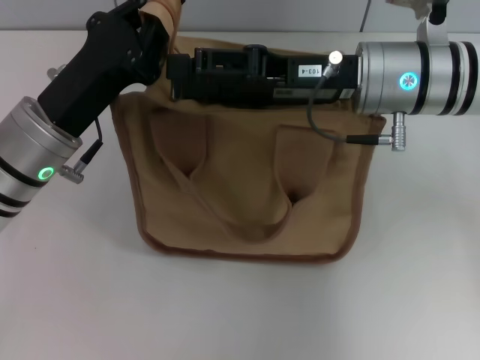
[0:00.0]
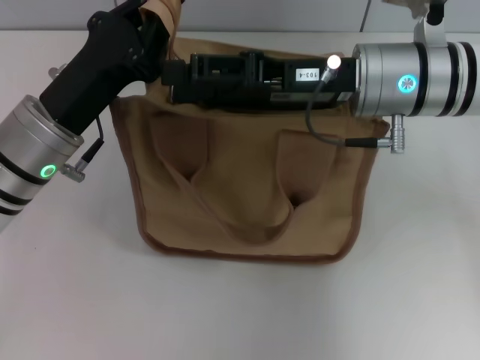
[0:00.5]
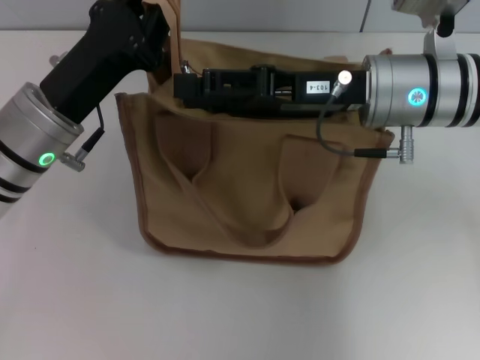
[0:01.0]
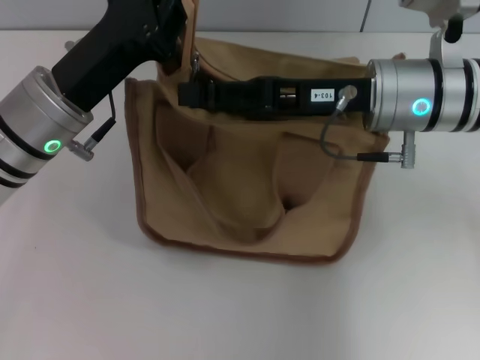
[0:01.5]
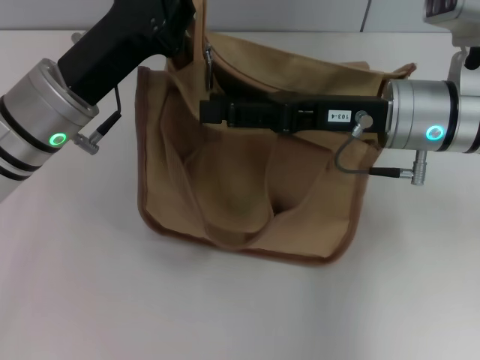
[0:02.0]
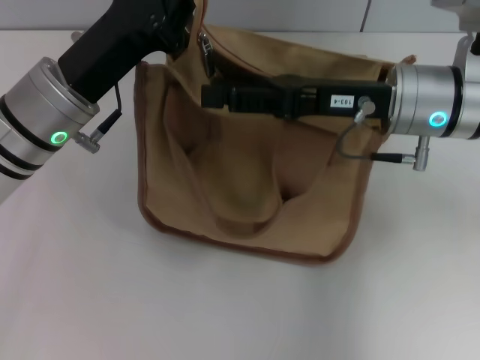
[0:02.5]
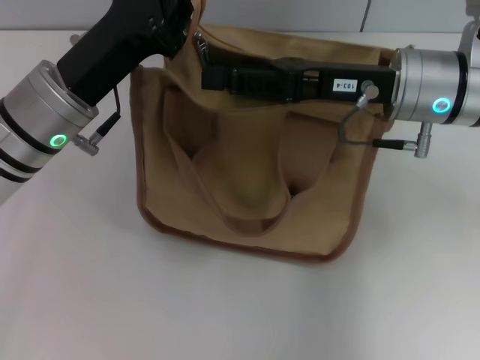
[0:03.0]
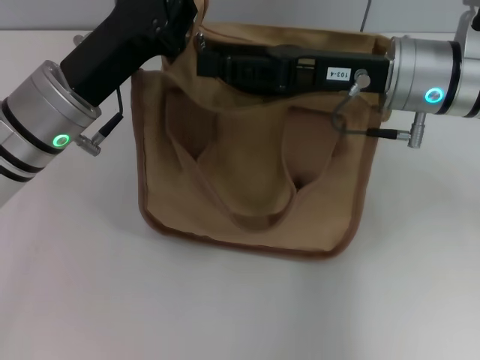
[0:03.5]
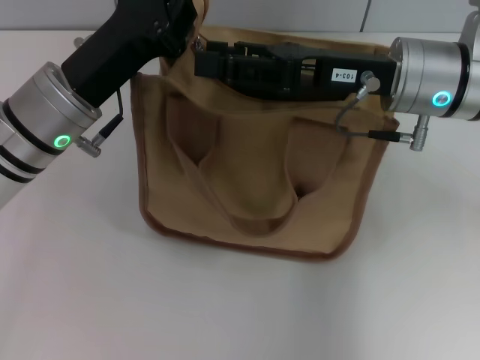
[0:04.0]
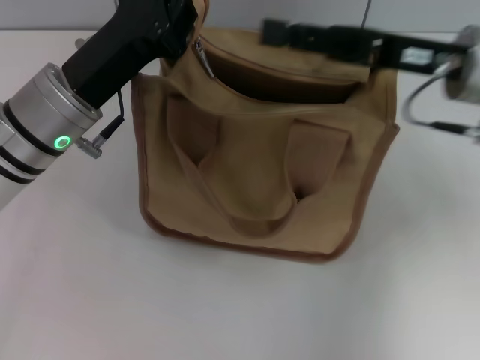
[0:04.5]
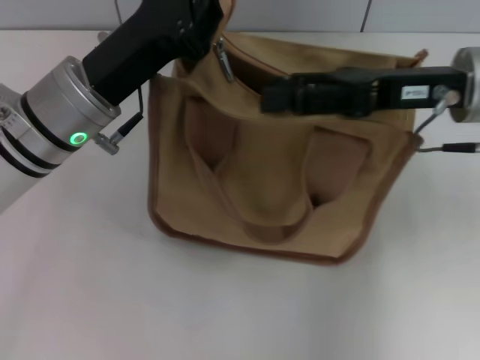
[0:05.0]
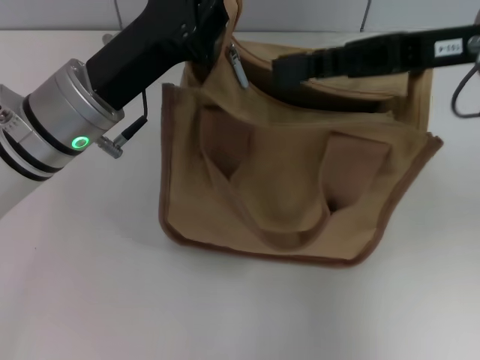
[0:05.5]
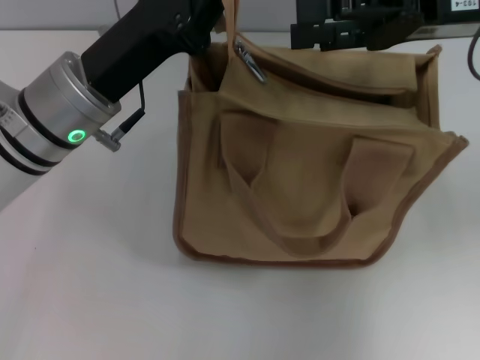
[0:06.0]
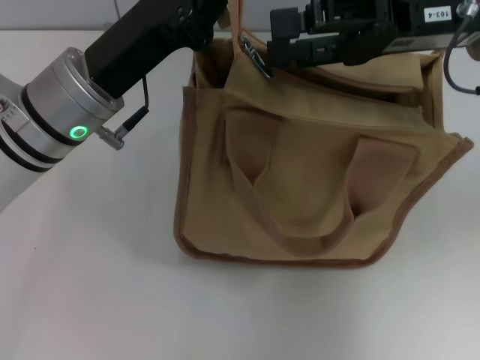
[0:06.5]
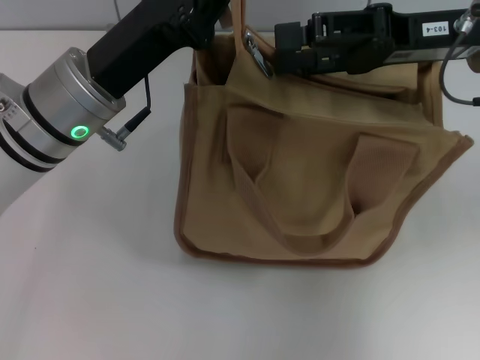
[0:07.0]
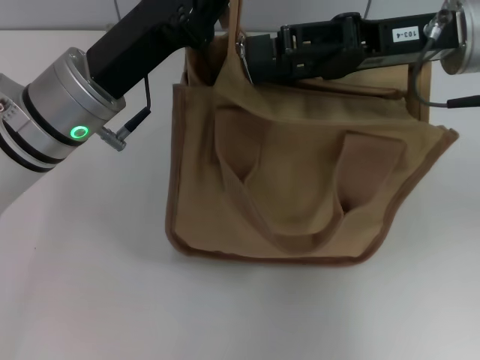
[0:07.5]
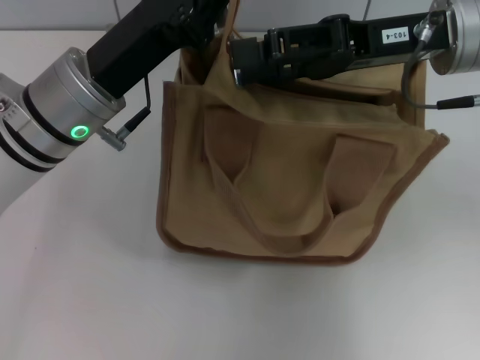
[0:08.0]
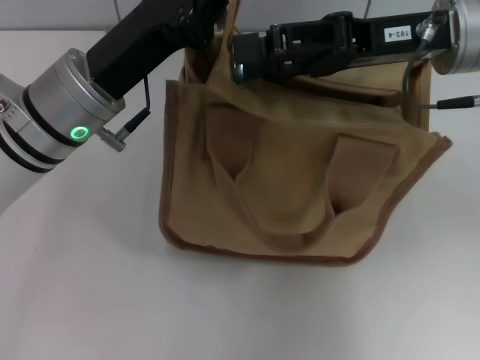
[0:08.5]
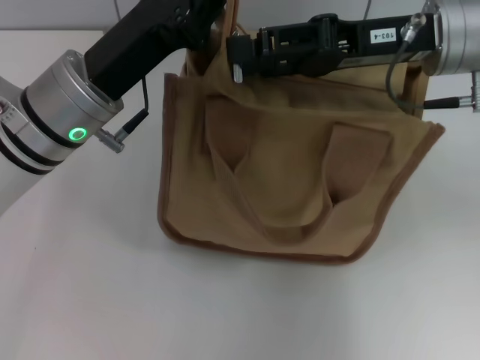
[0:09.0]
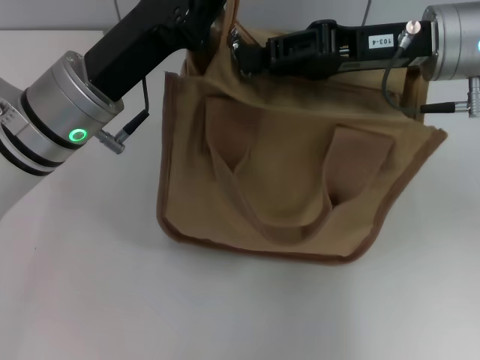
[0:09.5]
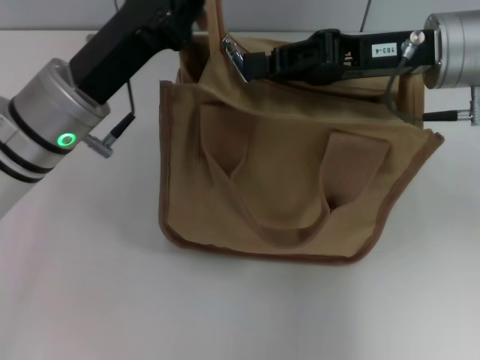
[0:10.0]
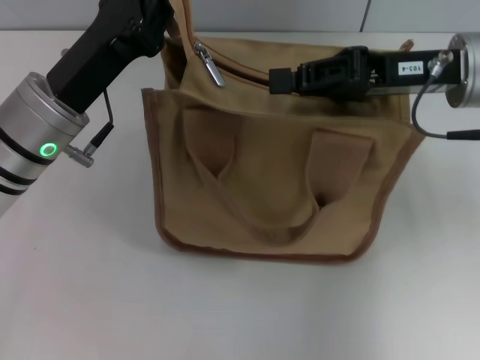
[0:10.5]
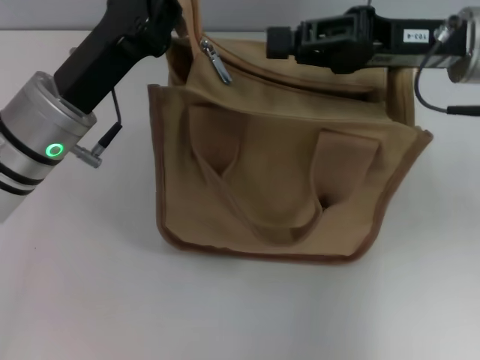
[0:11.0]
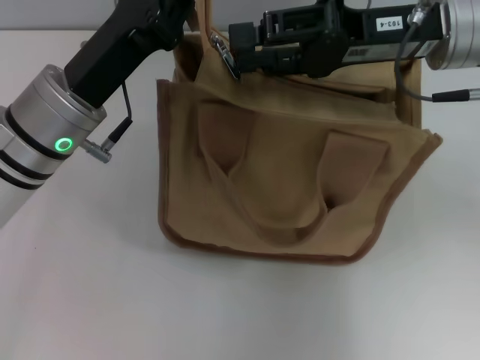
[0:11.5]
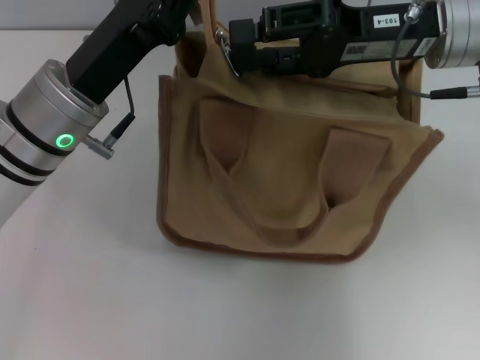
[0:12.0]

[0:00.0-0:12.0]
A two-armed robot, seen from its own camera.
0:02.0 to 0:04.0: The grippers make only small movements.
0:04.0 to 0:06.0: The right gripper goes some 10 cm to the right and upward.
0:08.0 to 0:10.0: The right gripper closes up.
0:10.0 to 0:12.0: The right gripper opens its fingers.

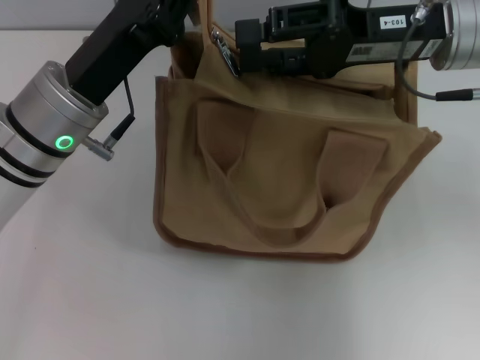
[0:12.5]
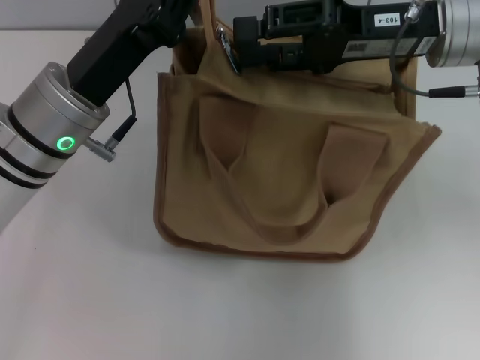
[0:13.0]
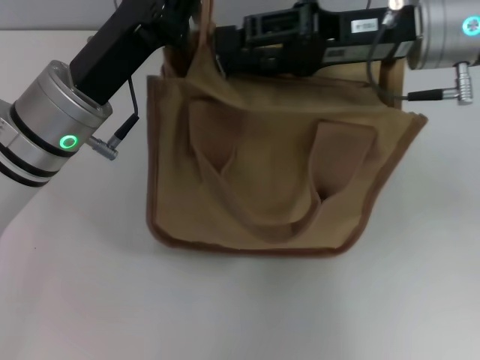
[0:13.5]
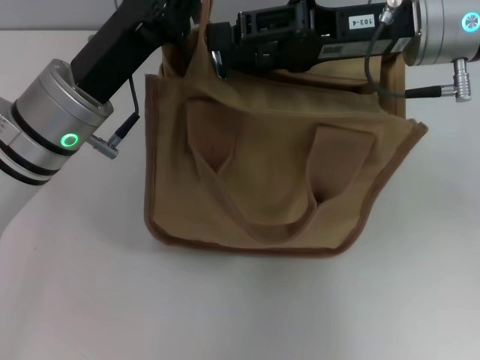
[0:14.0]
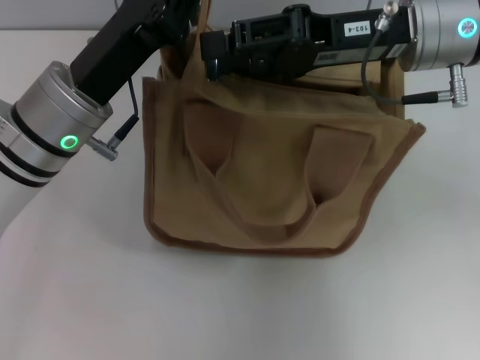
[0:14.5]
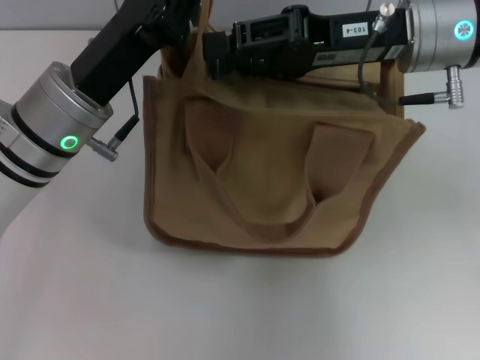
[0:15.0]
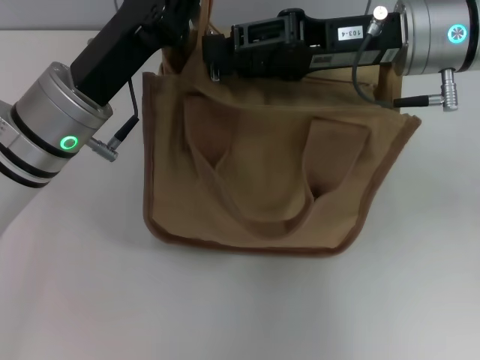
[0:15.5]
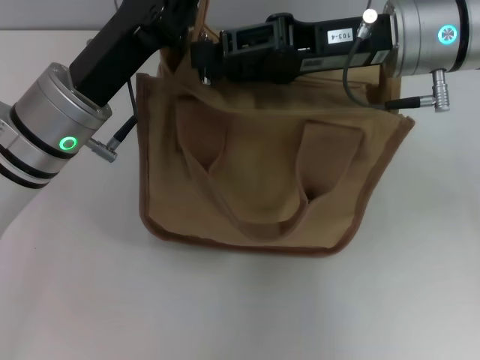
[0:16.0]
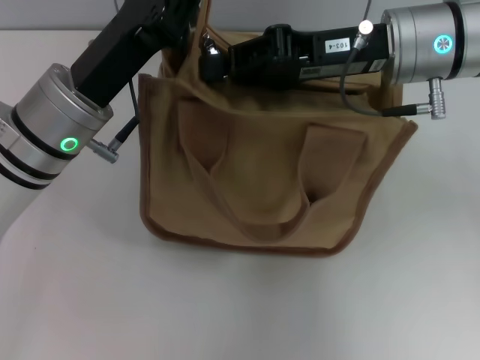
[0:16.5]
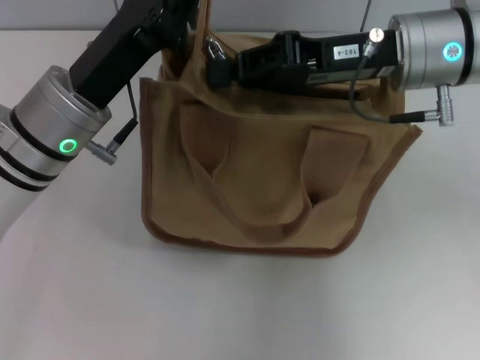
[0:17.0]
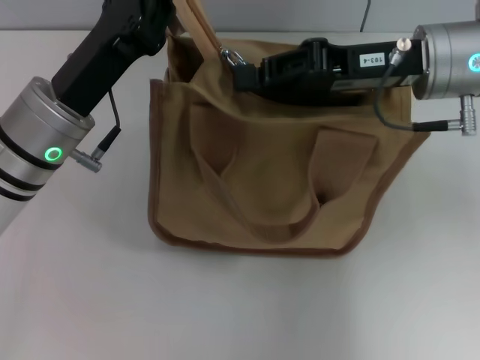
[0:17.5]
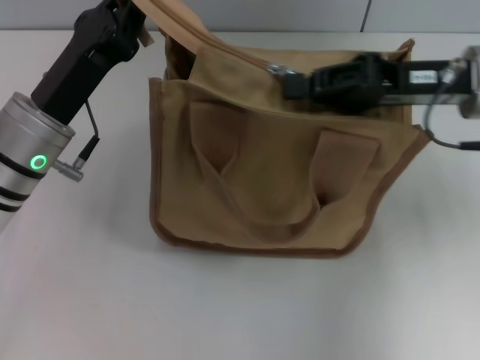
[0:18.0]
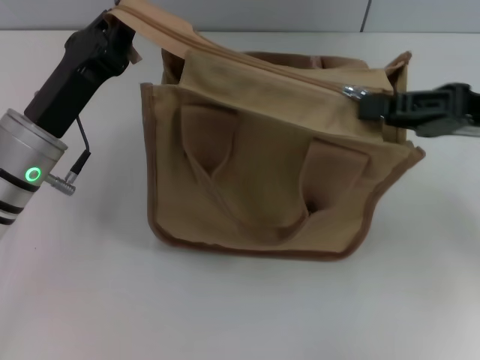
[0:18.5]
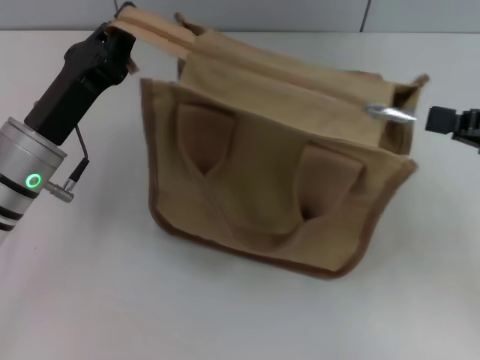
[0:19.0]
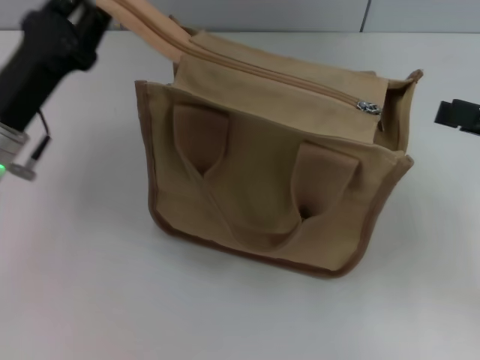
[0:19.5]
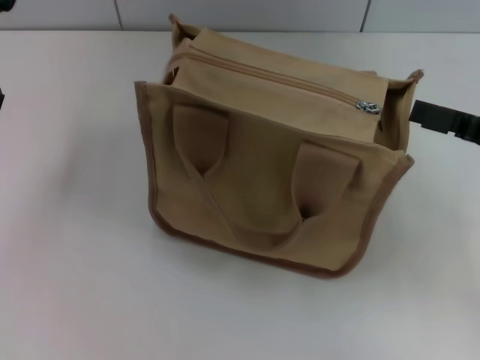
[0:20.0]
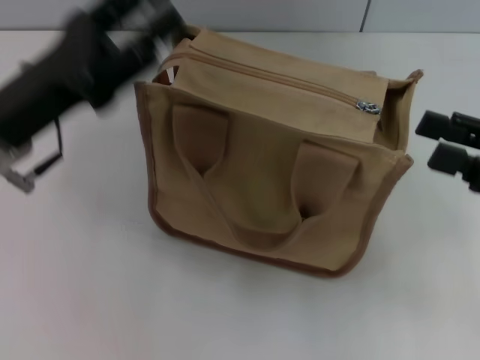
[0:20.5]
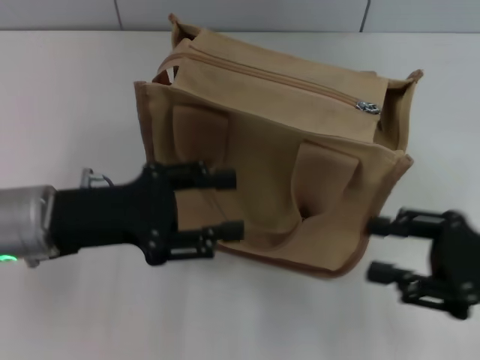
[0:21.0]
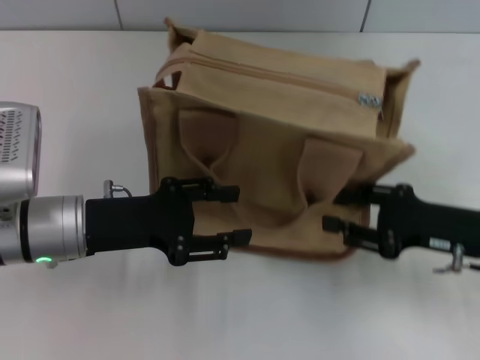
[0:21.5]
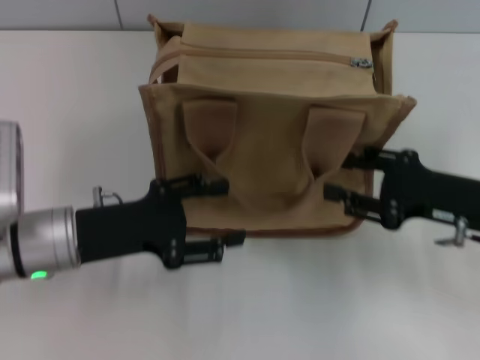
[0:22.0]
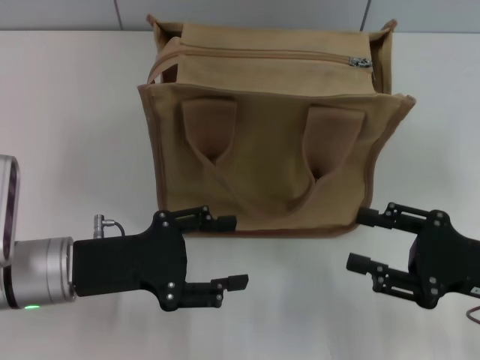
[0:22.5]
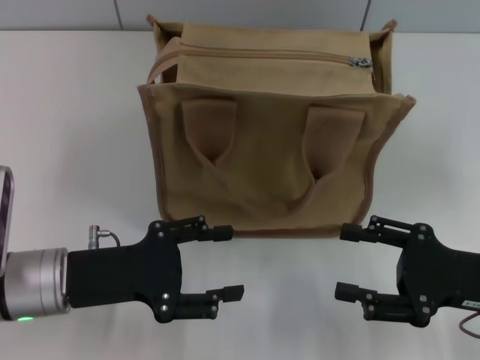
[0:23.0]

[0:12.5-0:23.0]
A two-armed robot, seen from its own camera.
Step, 0:12.5 to 0:18.5: Pull up the zipper with your right hand.
Step, 0:19.0 to 0:19.5: Grab the zipper with your left hand.
0:12.5 to 0:14.5: The grippers make only small movements.
0:14.5 to 0:16.5: The right gripper closes its fingers.
0:16.5 to 0:19.0: The left gripper shifts by about 5 cm. Meanwhile the right gripper shifts about 20 cm to the right and backward.
0:19.0 to 0:21.0: The left gripper opens its fingers. The right gripper goes approximately 10 cm backward and downward, and opens.
0:21.0 to 0:23.0: The left gripper ends up about 5 cm from where it was.

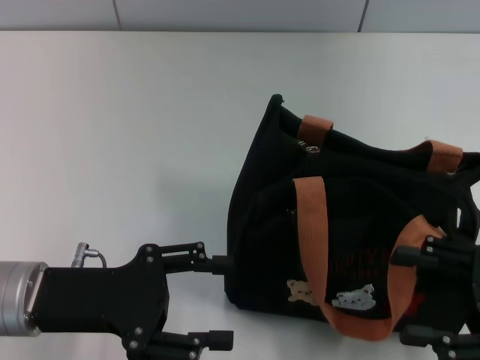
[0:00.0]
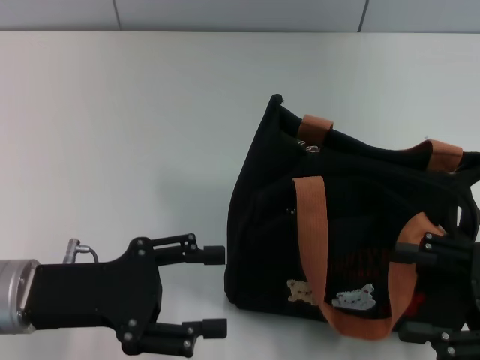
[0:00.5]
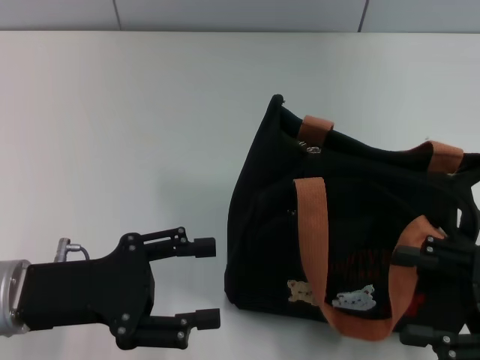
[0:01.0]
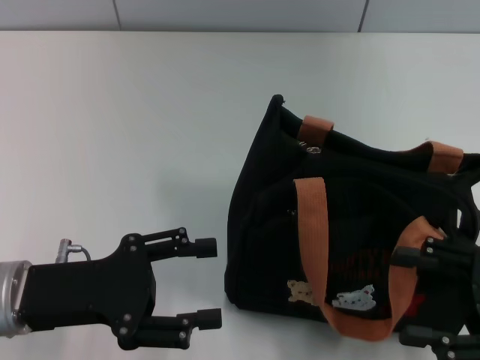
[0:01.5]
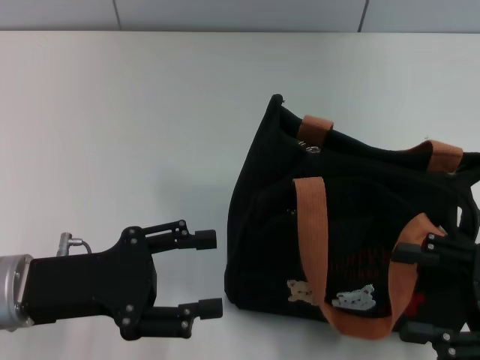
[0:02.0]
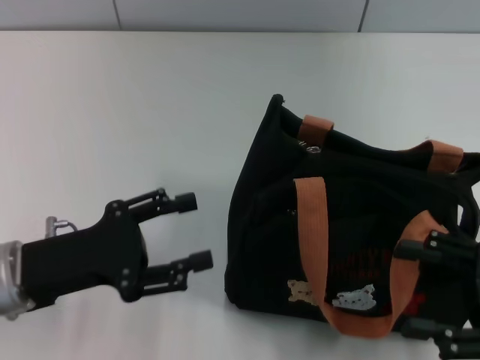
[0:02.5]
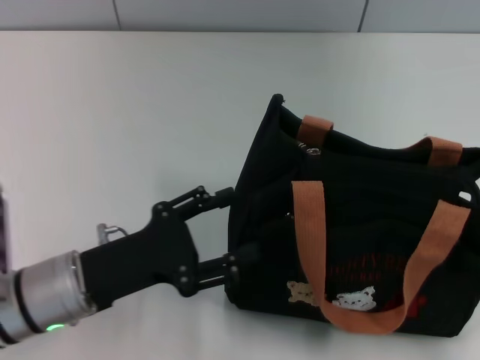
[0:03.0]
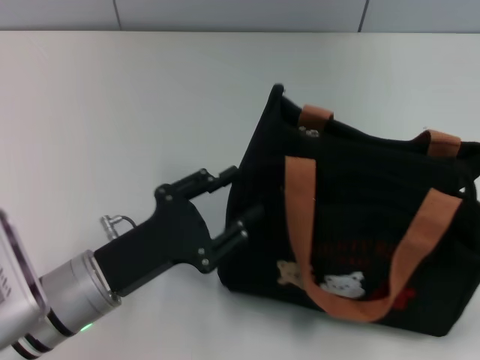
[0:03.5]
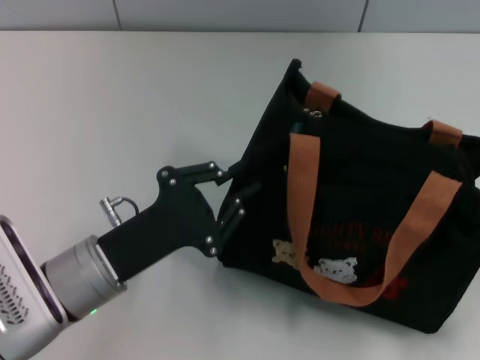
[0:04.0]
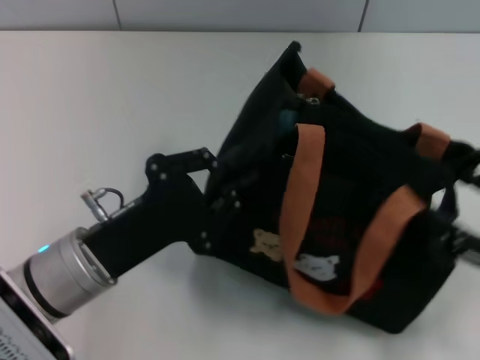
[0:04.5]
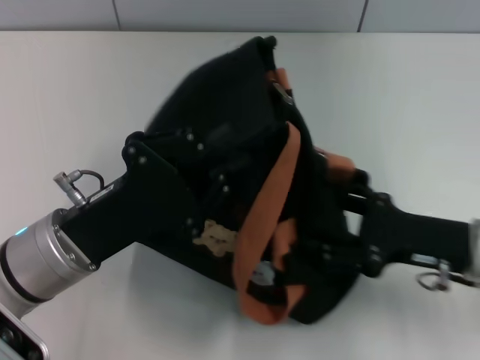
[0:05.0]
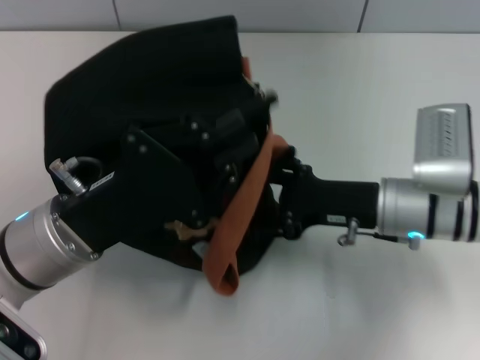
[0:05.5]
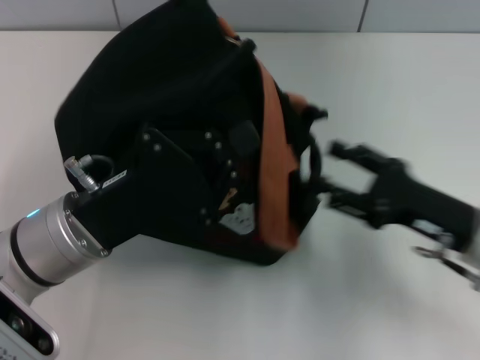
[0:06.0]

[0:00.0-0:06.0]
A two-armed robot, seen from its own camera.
0:00.0 to 0:02.0: The grippers stay close to where they were, moving slightly.
0:02.0 to 0:04.0: The right gripper changes place by roughly 5 cm. The left gripper shifts some 5 cm to the right, and closes its fingers.
0:04.0 to 0:06.0: The right gripper shifts about 15 cm to the left and forward.
